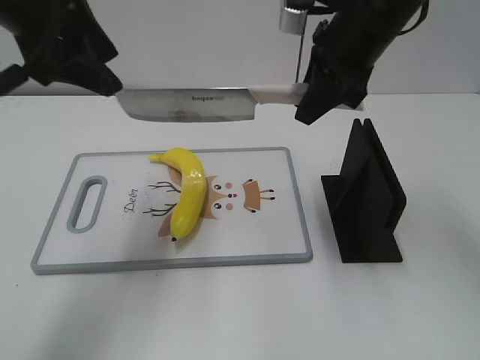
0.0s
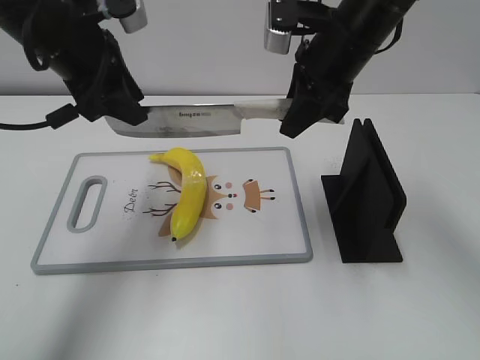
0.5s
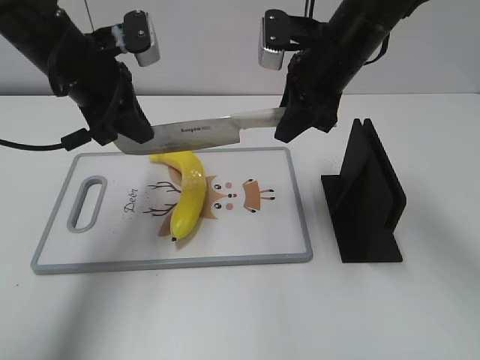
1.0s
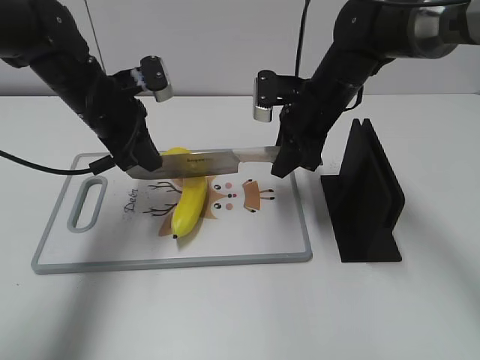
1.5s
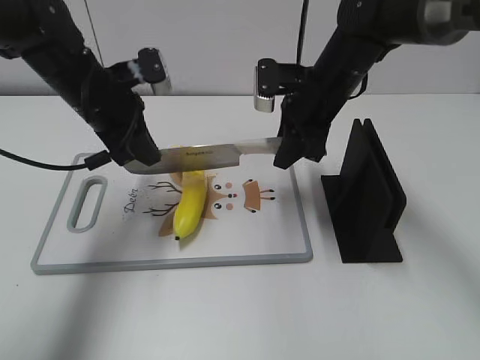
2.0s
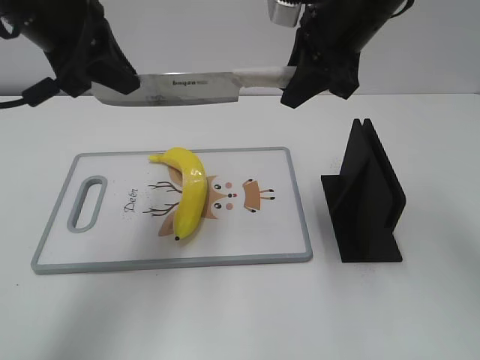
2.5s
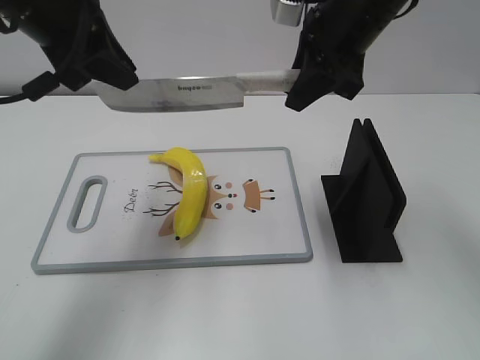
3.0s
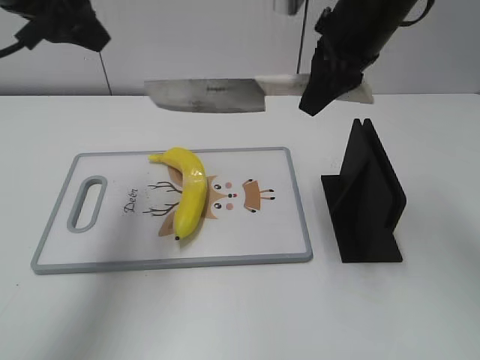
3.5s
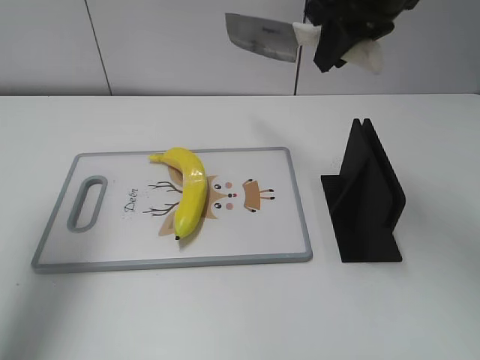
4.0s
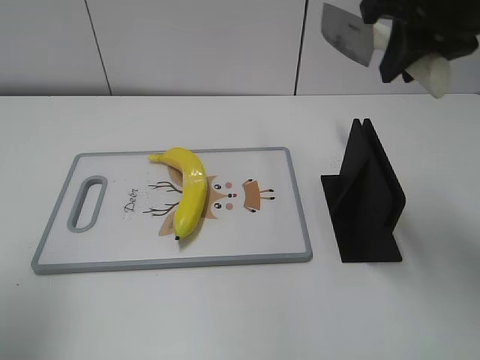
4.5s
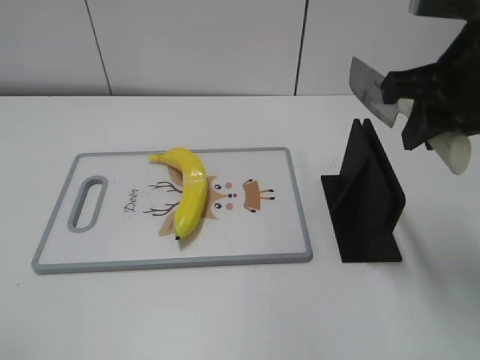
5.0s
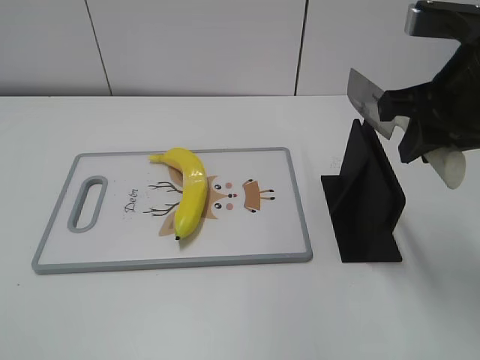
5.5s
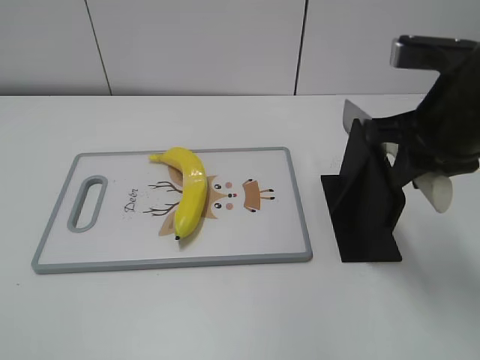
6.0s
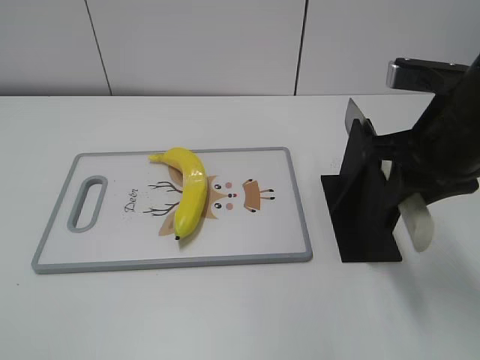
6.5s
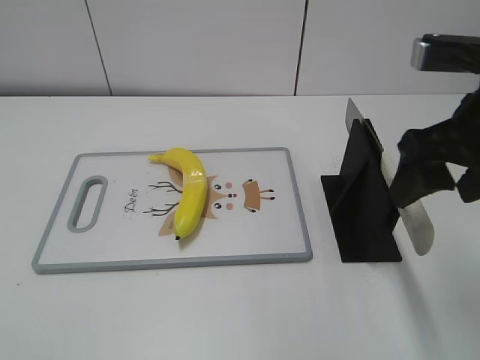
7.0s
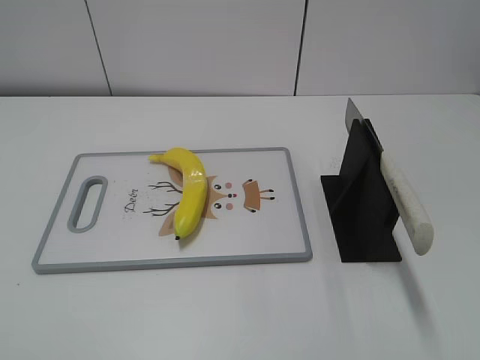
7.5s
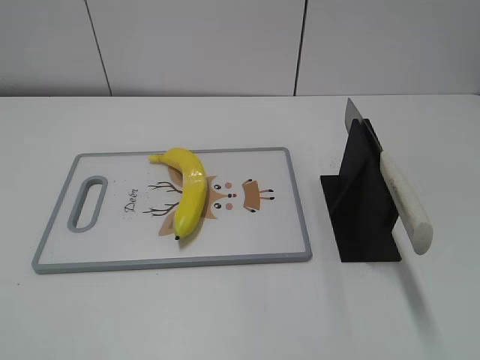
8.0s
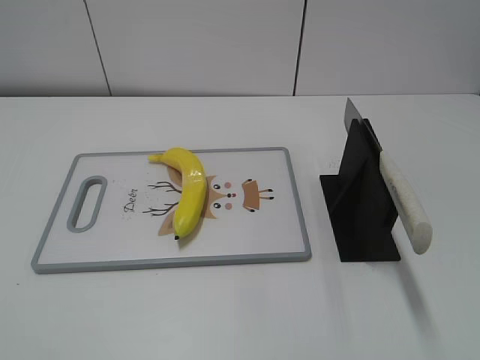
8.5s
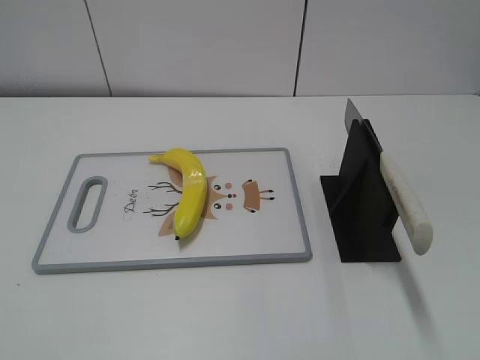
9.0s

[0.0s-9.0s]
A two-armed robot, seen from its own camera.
Task of the whole recording: cut plastic banana.
Step, 0.0s to 2.5s: Lift the knife with your right hand.
Step, 3.0s to 3.5s: Cut the banana with your right hand.
Step, 4.0s to 5.0s: Lift the knife with your right hand.
Step, 6.0s to 9.0s: Place the knife on the storage rack with your right hand.
0.0s to 2.0s: The left gripper heads downward and forward, covering roughly 15 cm, and closes up; the right gripper heads downward, covering some 10 cm.
2.0s to 4.5s: The left gripper moves backward, upward and to the left, roughly 25 cm, and opens up; the right gripper heads upward and backward, covering some 20 cm.
4.5s to 7.0s: The left gripper goes some 20 cm backward; the right gripper goes approximately 10 cm backward and downward, and opens.
7.0s to 9.0s: The right gripper travels backward by roughly 25 cm.
